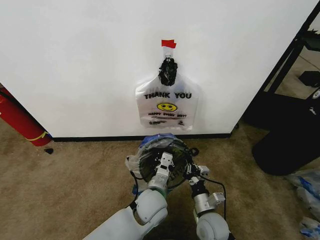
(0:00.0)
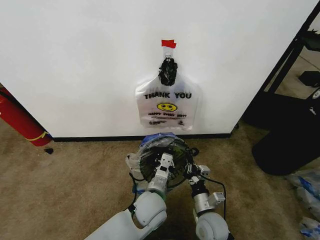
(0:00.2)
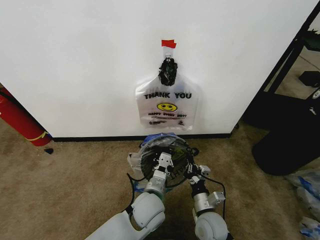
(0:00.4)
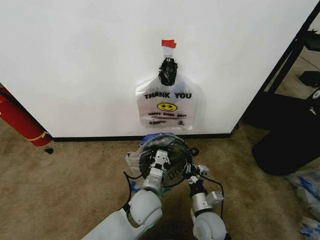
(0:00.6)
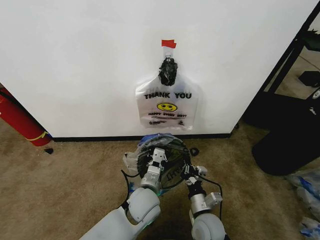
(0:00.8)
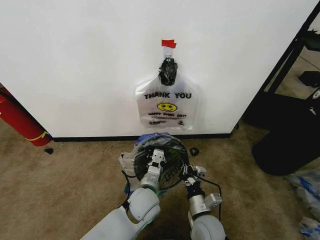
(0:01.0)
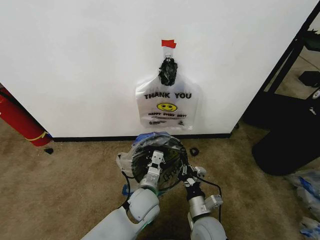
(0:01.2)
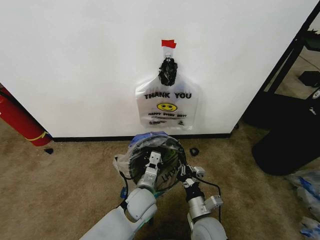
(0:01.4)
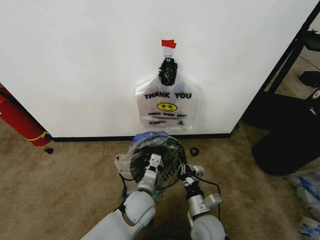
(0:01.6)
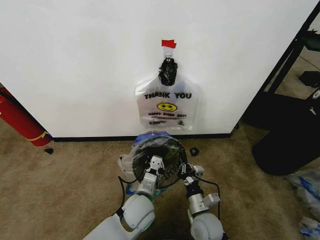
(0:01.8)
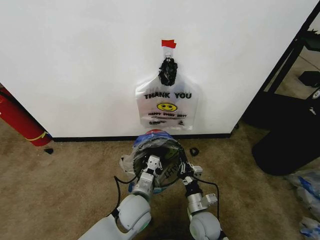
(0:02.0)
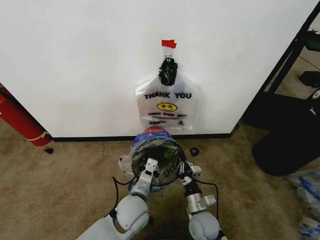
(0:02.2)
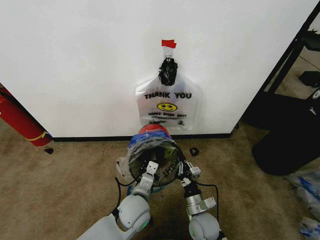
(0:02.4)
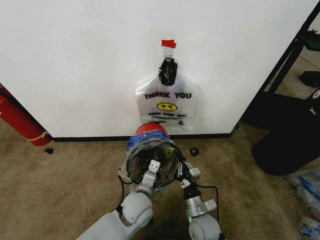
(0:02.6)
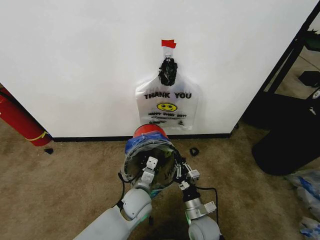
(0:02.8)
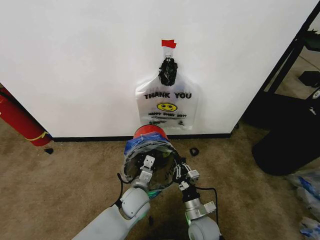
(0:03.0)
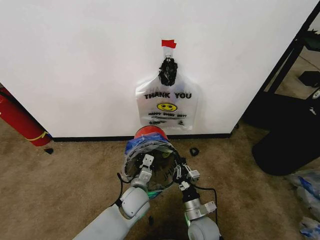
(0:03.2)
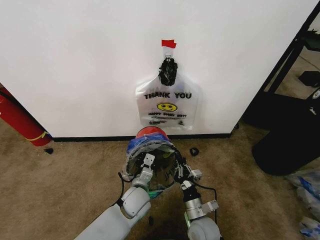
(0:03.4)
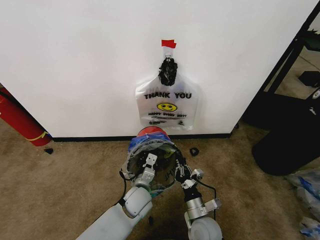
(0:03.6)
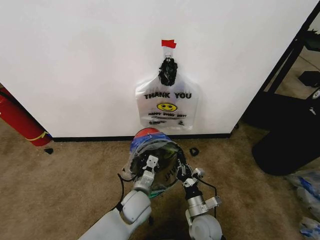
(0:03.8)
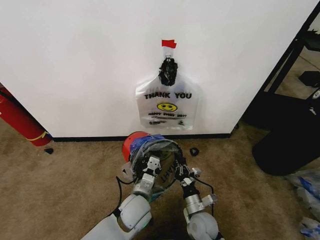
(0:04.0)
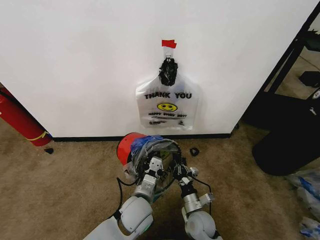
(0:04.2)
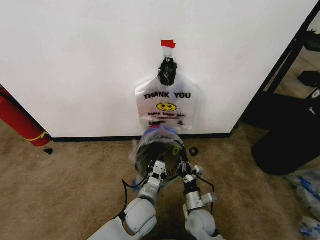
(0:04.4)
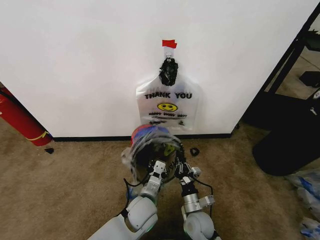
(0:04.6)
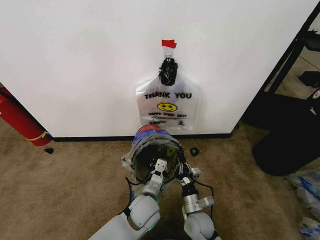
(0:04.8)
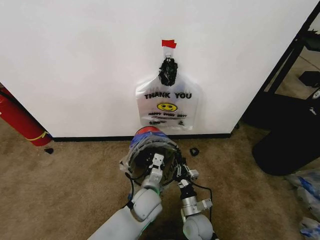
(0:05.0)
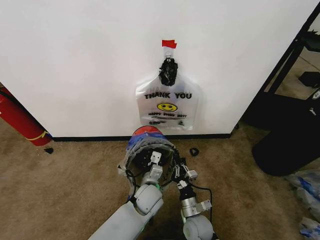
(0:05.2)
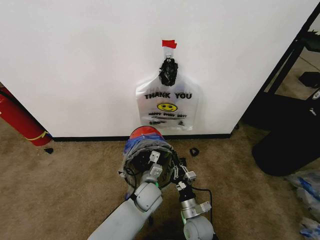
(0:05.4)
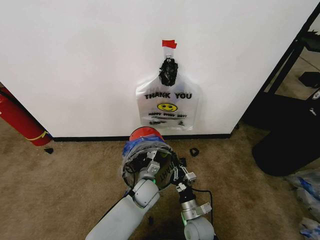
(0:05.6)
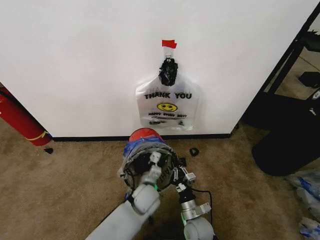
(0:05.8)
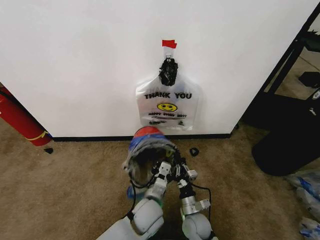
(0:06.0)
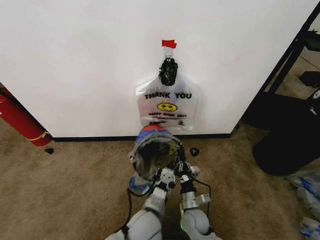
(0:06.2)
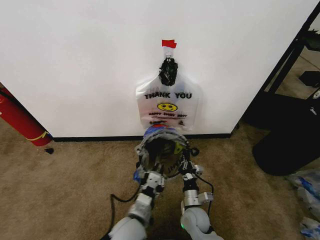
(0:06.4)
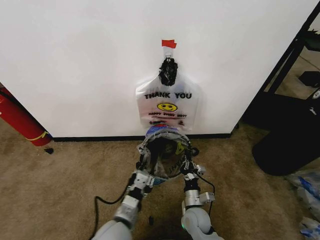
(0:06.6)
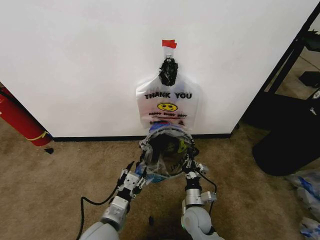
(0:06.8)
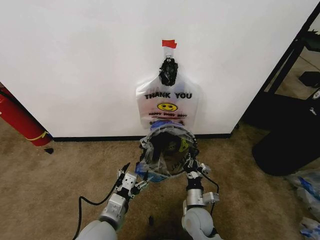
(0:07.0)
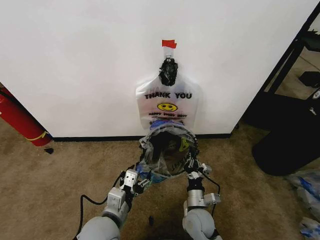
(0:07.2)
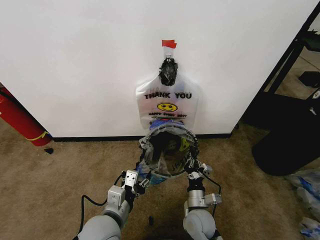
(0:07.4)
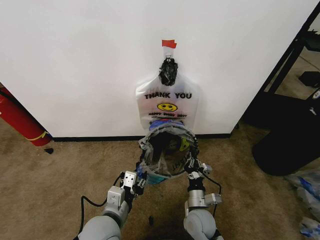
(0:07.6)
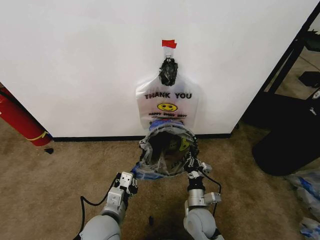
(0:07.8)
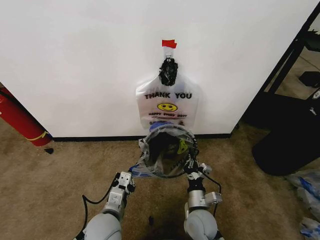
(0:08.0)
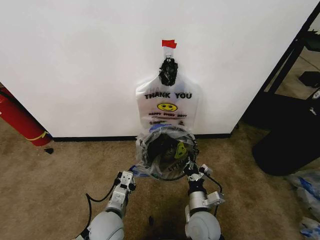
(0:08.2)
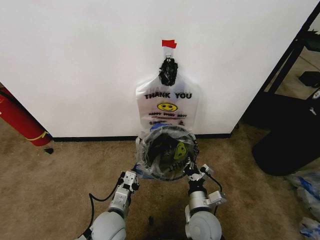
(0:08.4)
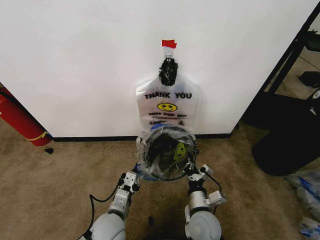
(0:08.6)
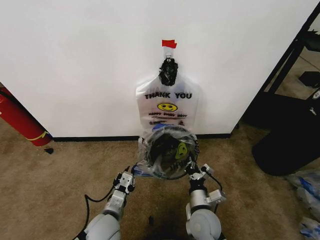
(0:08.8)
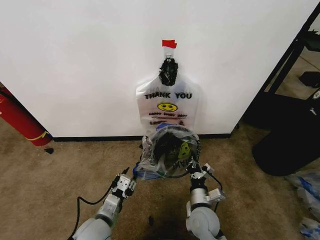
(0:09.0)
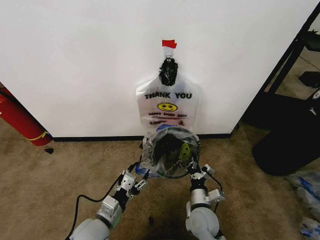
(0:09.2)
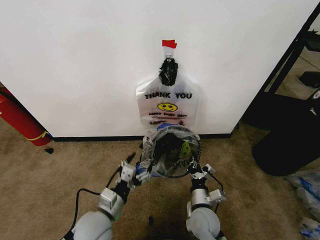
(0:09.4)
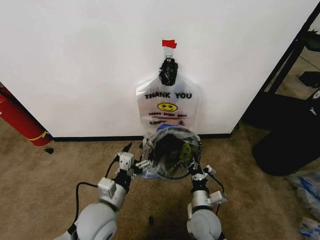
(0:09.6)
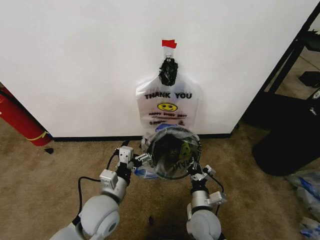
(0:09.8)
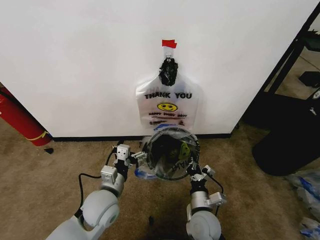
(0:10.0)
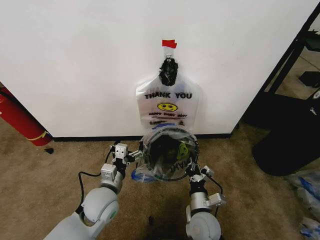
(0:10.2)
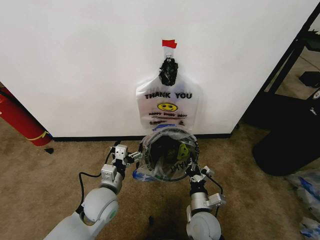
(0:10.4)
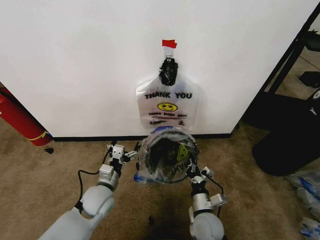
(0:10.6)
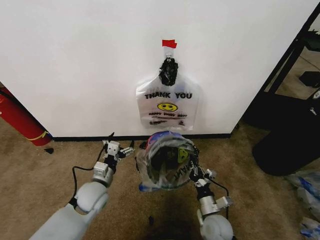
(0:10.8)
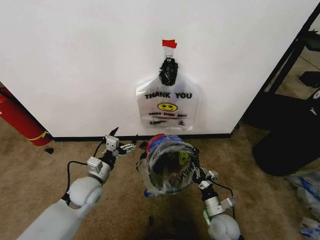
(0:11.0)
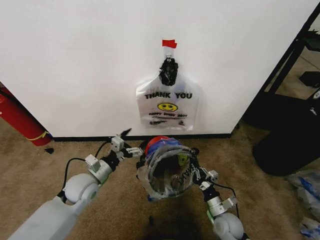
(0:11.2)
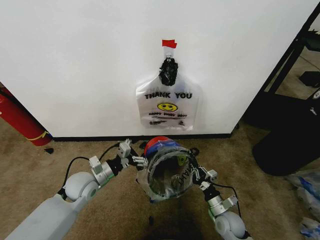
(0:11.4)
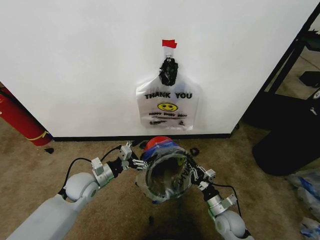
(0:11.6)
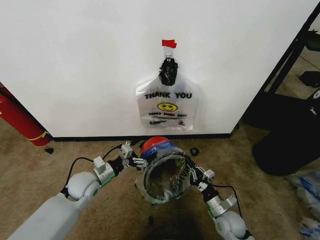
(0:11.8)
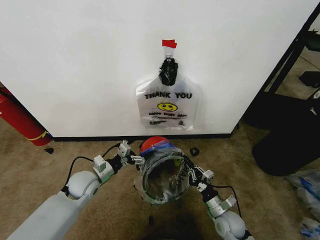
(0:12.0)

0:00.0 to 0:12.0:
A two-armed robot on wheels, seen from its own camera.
Task of the whole recording: Pick up the garbage bag from the wall and place it over the trash bin.
0:00.0 to 0:01.6: The grippers stay close to where they were, moving slightly.
0:01.6 to 0:03.0: The grippers stay close to where they were, moving slightly.
0:03.0 to 0:04.4: The left gripper moves approximately 5 cm.
0:04.4 to 0:06.0: The left gripper travels forward and back again, roughly 10 cm each way.
0:06.0 to 0:07.6: The left gripper shifts about 15 cm to the left, upward and backward, and opens, then closes again; the right gripper heads upward, covering approximately 5 cm.
0:07.6 to 0:09.0: The left gripper travels downward by approximately 5 cm.
0:09.0 to 0:10.4: The left gripper shifts approximately 10 cm forward, and opens up.
0:10.4 to 0:12.0: The left gripper heads to the left and forward, covering about 10 cm. The right gripper moves to the right and downward, some 10 cm.

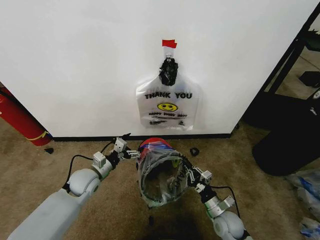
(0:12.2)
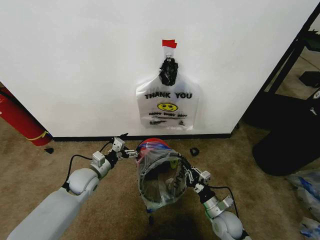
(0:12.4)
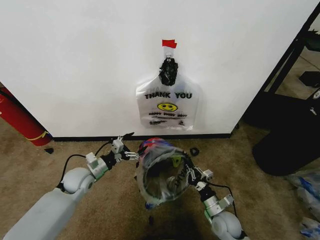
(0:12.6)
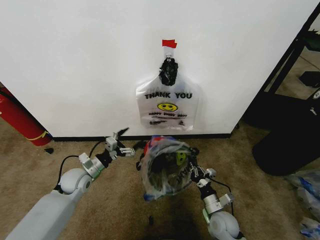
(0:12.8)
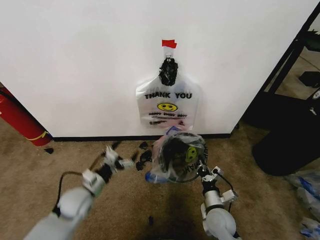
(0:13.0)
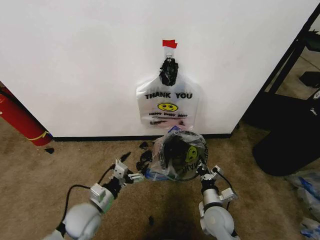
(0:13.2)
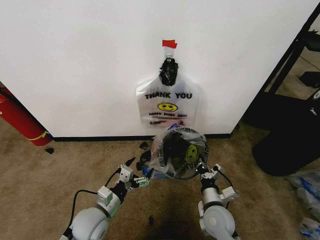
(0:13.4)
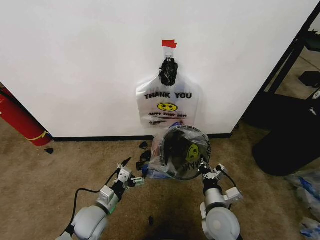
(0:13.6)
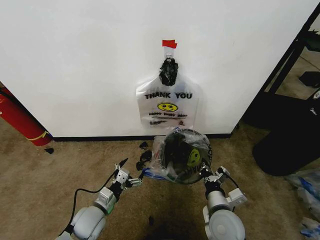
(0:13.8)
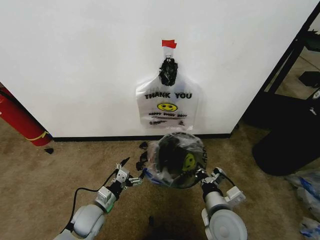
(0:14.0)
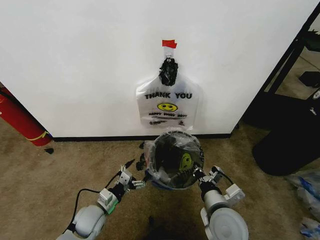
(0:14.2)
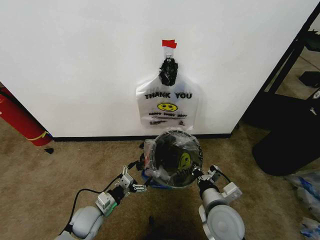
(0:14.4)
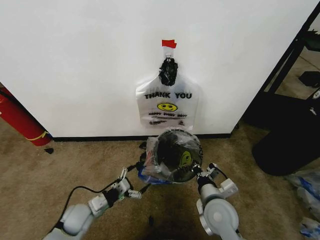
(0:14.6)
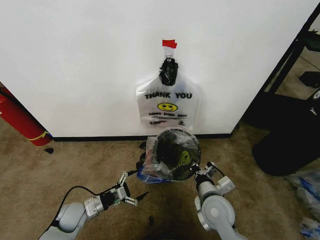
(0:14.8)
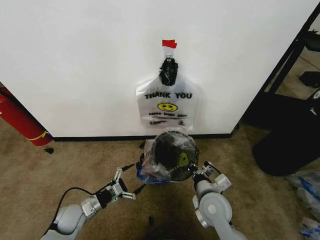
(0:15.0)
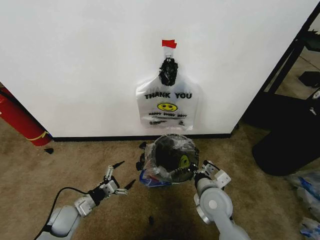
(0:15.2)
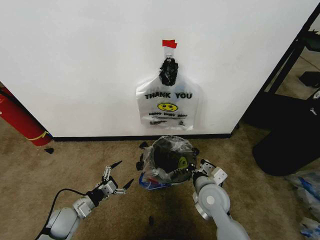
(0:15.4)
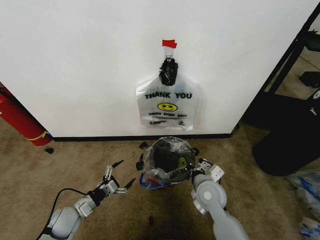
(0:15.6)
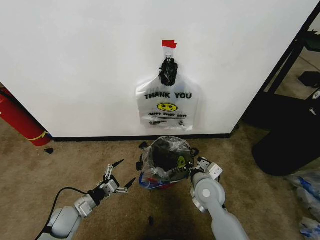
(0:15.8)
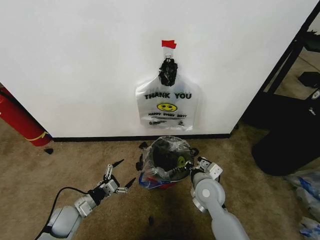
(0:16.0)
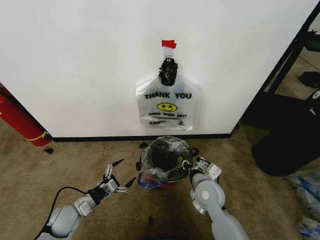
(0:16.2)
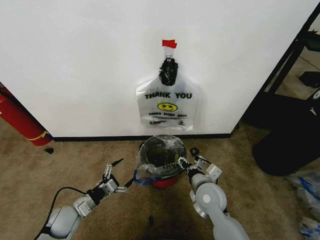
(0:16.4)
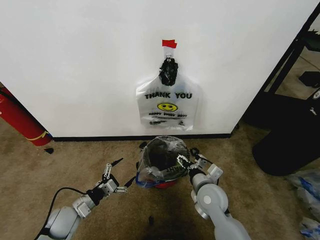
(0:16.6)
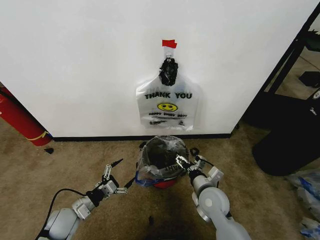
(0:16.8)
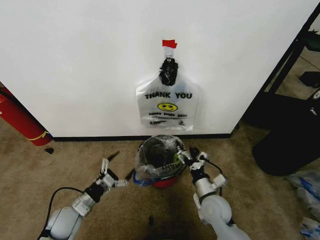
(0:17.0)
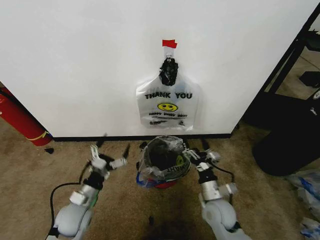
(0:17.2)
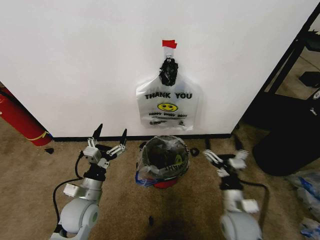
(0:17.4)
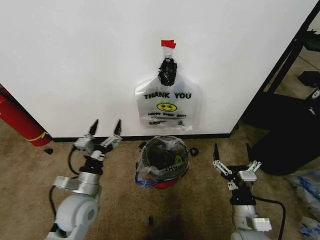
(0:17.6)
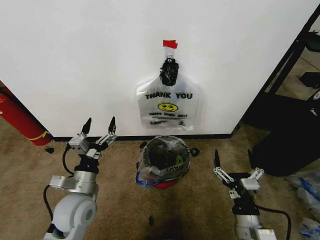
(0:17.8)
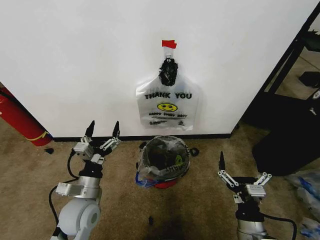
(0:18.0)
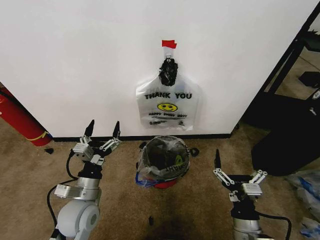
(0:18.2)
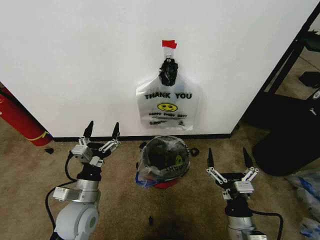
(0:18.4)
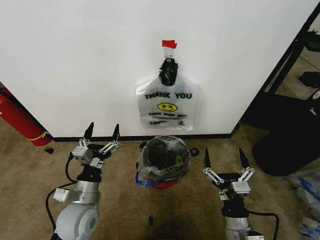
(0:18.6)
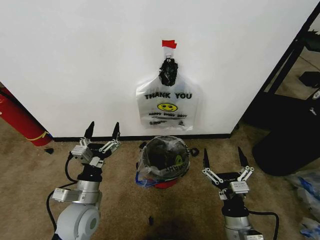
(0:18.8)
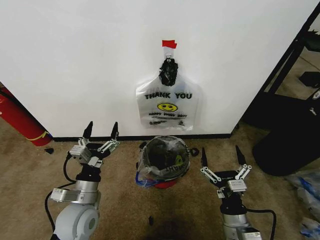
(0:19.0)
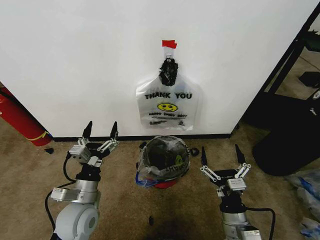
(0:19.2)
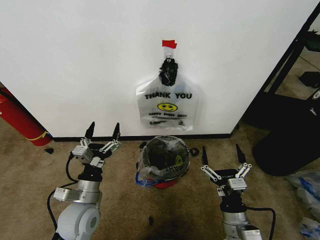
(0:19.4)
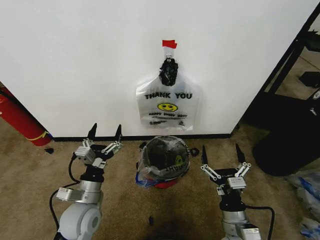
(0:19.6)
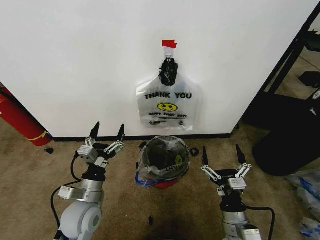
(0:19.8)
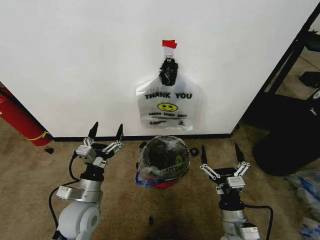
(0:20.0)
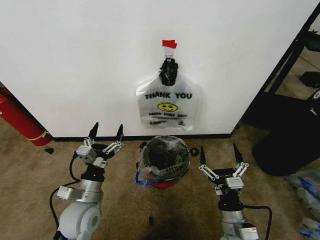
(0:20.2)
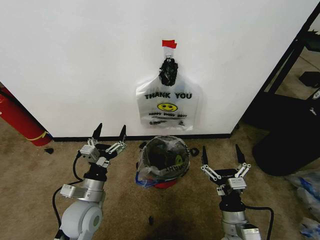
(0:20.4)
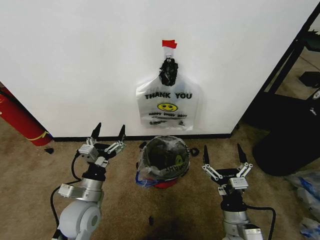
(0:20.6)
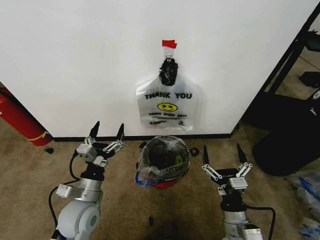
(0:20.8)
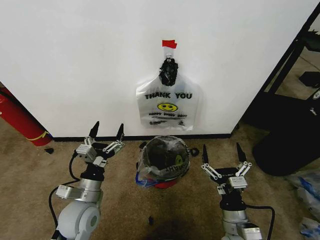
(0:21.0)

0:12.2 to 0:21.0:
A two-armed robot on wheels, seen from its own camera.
Task of the whole recording: Pick up the garbage bag from the wall and place it over the trash bin.
0:12.2 to 0:13.6: The right gripper heads upward and to the left, covering about 10 cm. The left gripper is displaced backward by about 10 cm.
0:13.6 to 0:15.2: The right gripper ends up roughly 5 cm from where it was, while the left gripper goes about 10 cm to the left.
0:15.2 to 0:16.6: The right gripper opens up.
0:16.6 to 0:18.0: The left gripper travels upward and to the right by roughly 15 cm. The right gripper shifts about 20 cm backward and to the right.
0:18.0 to 0:19.6: The grippers stay close to where they were, moving slightly.
0:19.6 to 0:21.0: Neither gripper changes place.

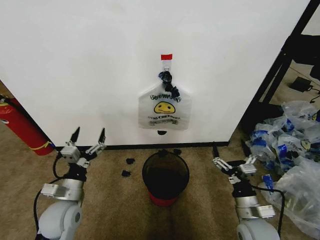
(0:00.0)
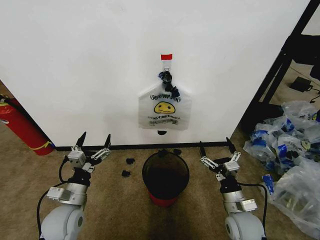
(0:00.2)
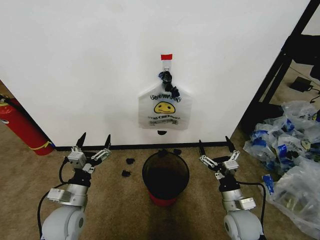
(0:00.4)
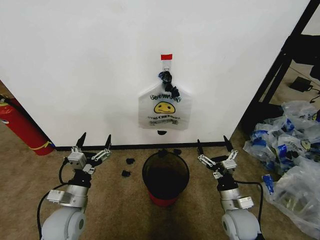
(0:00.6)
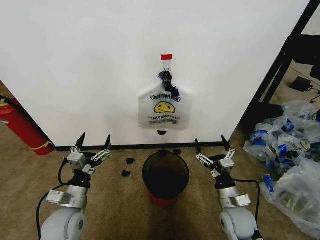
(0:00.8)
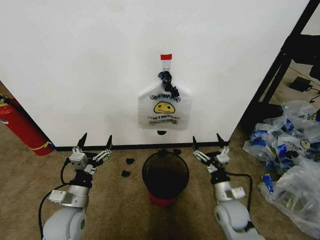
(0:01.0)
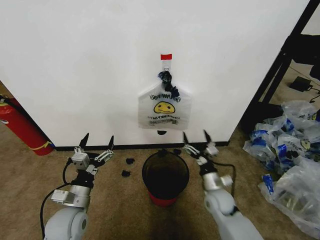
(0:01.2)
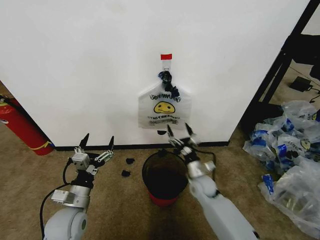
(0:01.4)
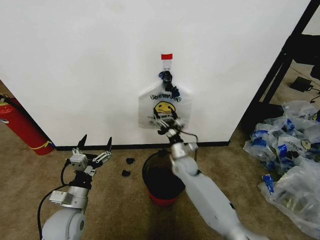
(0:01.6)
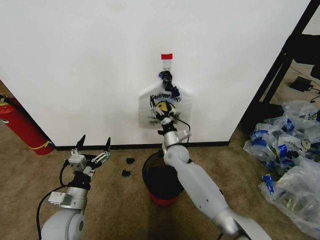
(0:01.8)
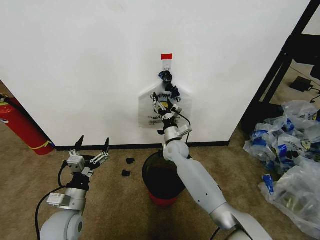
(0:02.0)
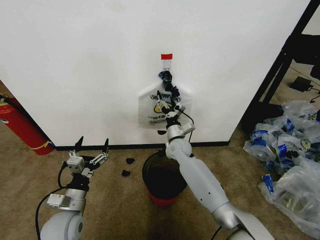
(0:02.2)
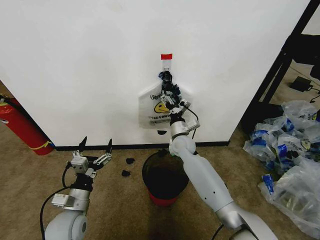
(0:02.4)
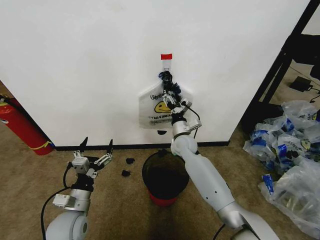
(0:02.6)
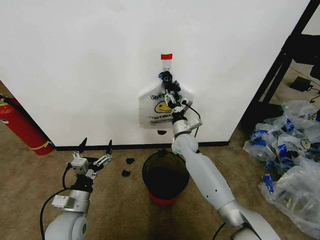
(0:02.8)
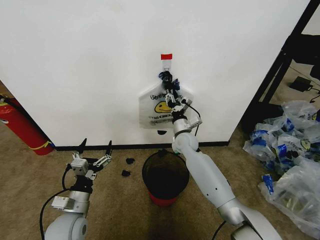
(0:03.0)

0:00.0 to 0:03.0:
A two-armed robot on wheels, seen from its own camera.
Task of the whole recording: Pick up the garbage bag from the wall and place it over the trash bin.
0:01.6 to 0:03.0: The right gripper shifts some 10 cm upward and forward, and closes.
